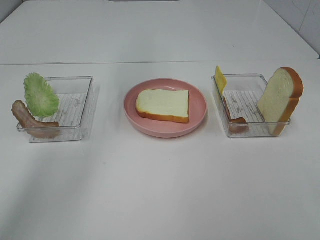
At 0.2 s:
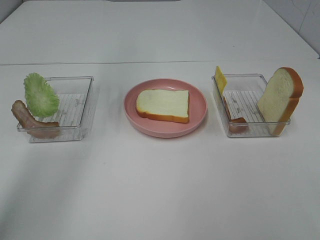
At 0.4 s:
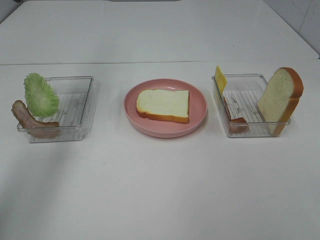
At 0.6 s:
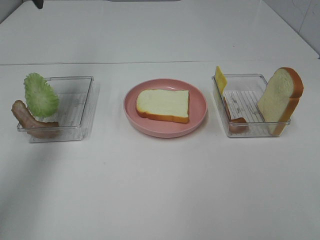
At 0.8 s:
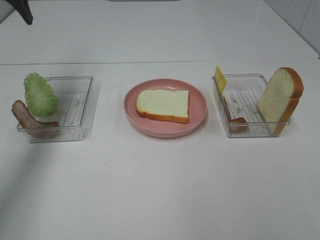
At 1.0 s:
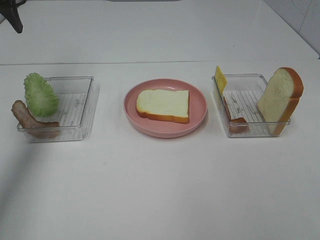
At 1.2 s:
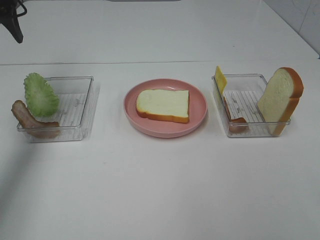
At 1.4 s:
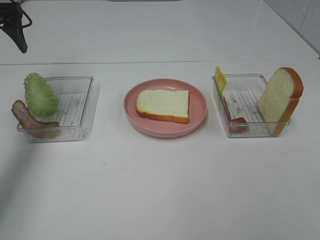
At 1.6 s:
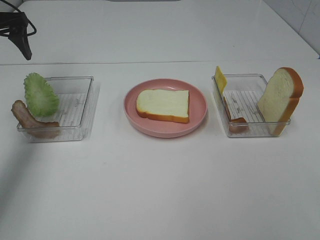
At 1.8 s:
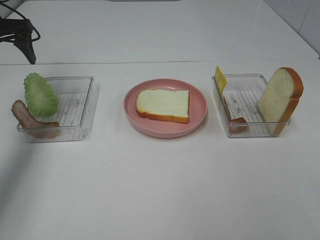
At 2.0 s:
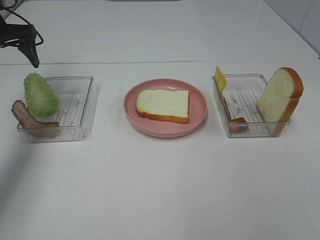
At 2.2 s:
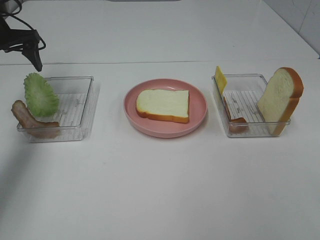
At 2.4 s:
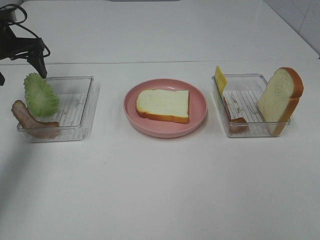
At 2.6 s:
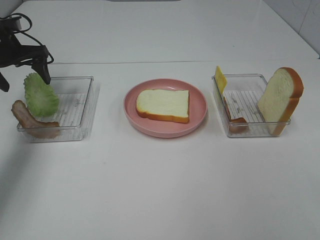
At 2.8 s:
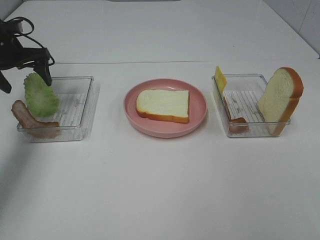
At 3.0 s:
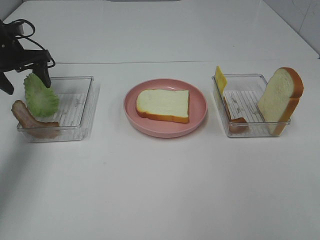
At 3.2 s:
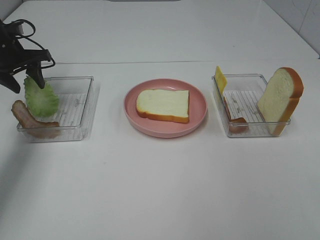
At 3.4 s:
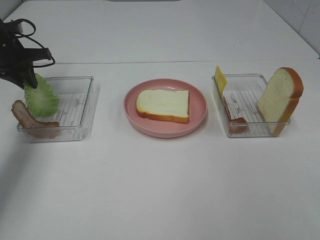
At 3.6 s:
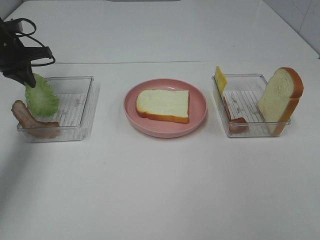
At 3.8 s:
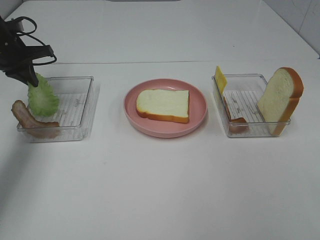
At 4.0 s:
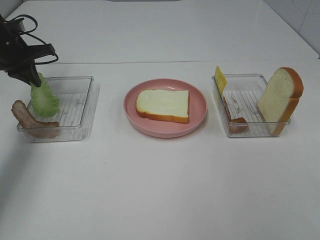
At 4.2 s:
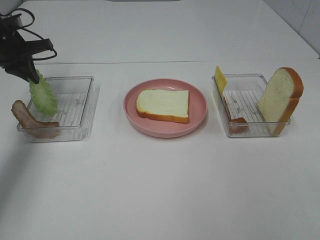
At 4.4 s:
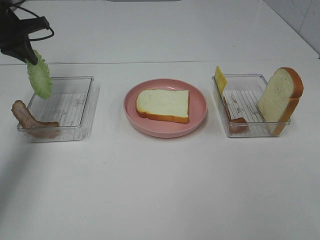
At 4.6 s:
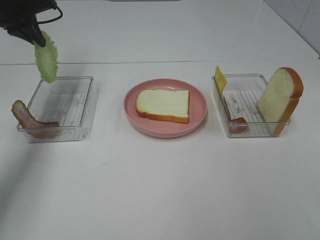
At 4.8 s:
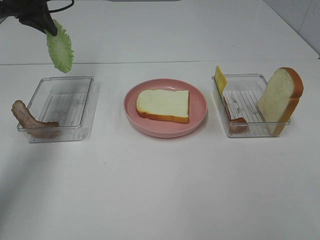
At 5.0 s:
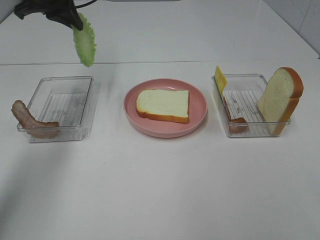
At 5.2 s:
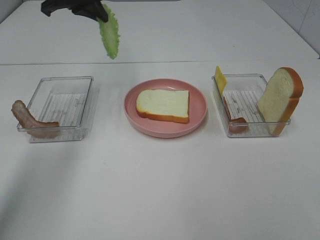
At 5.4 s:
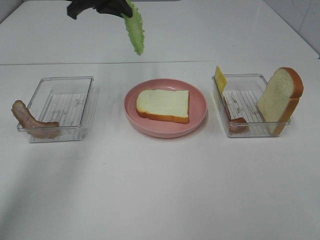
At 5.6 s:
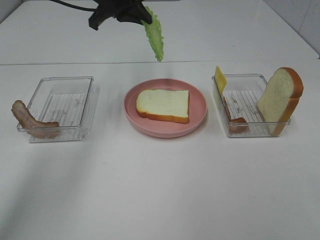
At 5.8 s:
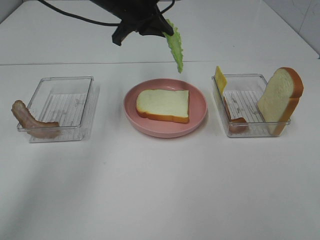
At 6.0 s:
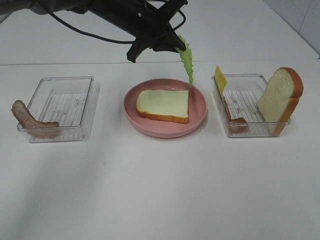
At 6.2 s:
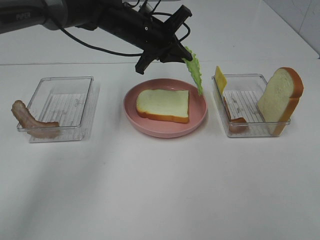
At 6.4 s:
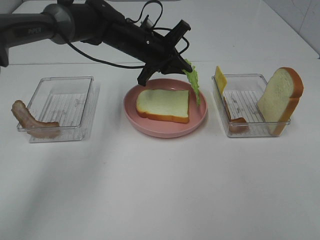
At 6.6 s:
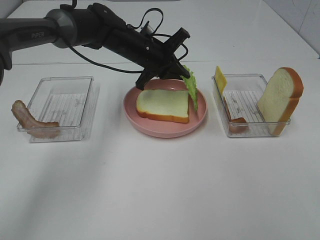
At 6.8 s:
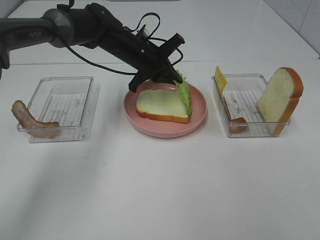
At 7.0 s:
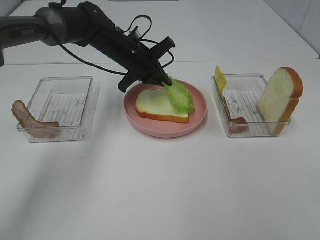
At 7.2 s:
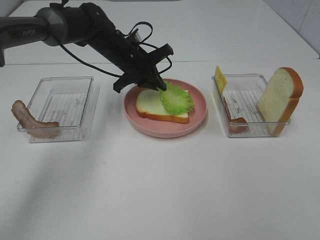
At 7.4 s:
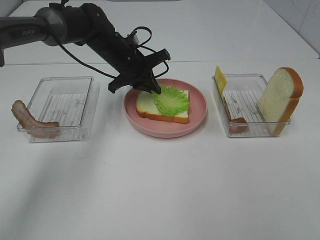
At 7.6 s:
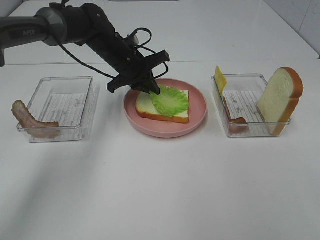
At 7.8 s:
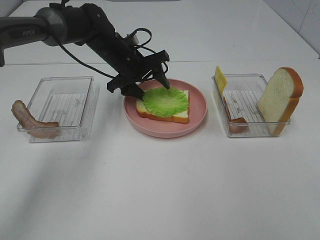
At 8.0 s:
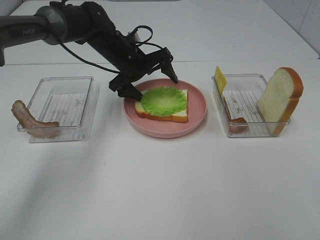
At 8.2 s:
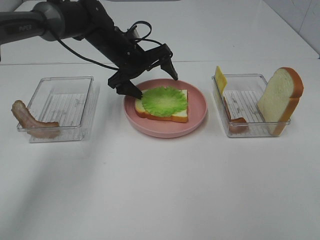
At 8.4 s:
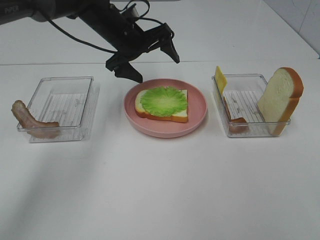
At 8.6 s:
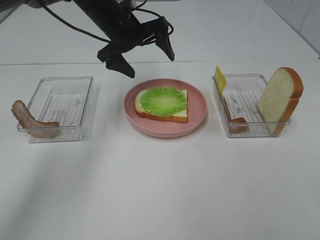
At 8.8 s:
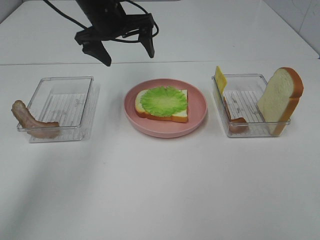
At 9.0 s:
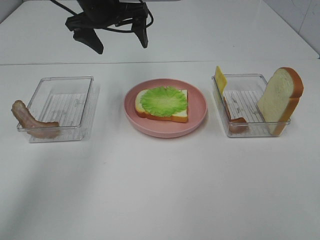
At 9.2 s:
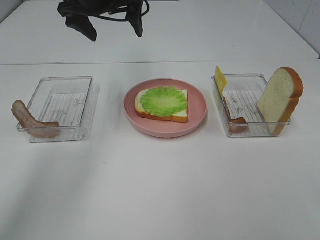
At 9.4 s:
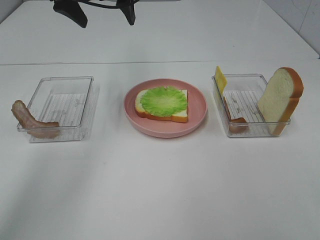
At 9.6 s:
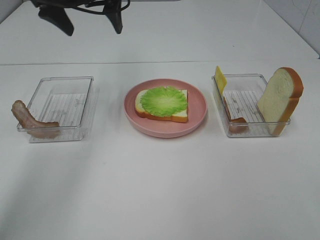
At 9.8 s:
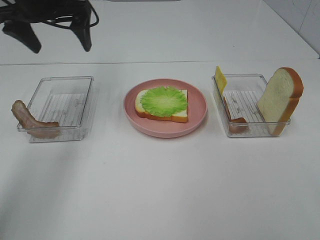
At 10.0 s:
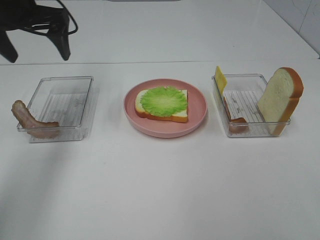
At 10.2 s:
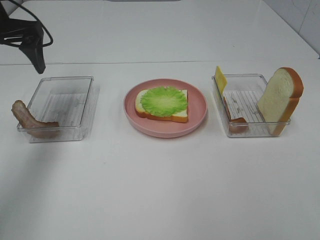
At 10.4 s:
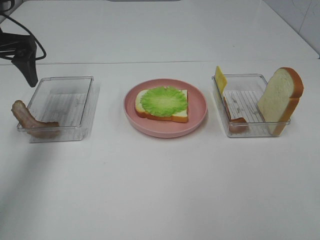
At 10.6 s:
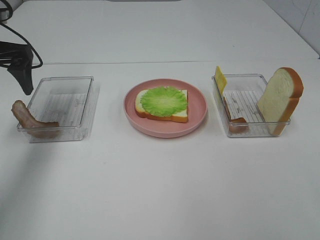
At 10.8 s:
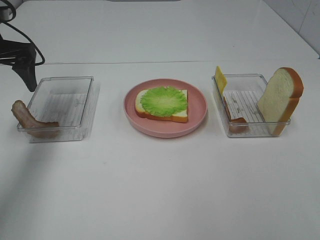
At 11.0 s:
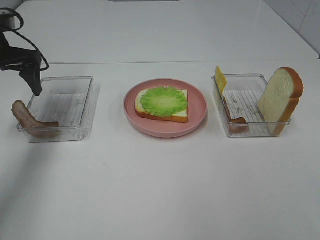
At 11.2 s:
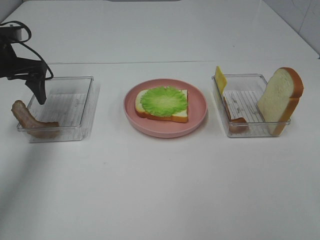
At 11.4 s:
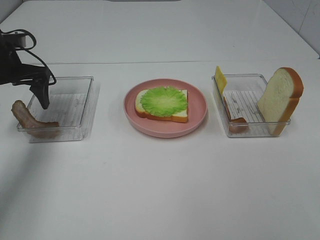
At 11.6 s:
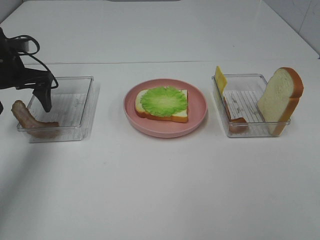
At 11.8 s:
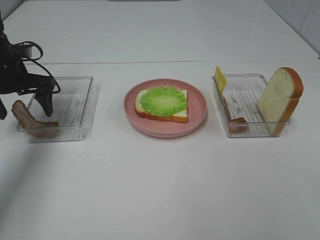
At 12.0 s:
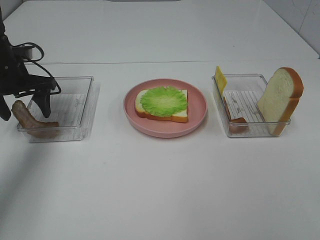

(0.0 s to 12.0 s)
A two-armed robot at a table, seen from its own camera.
Task of the whole recording: Make sandwiches.
Step, 0.0 s - 4.0 s: Left hand:grab the lettuce slice.
Step, 4.2 s - 8.4 s: Left hand:place the lettuce slice on the bread slice.
0.0 s - 1.6 s: The left gripper travels to the left and downward by some 20 cm.
1.6 s - 3.0 s: The left gripper goes some 10 cm downward.
3.0 s - 4.4 s: The left gripper travels upward by approximately 5 cm, and closes its fingers.
4.4 s - 6.0 s: The left gripper is displaced to the right by some 25 cm.
6.0 s - 7.6 s: The left gripper travels downward by approximately 10 cm.
7.6 s - 9.0 s: The left gripper is displaced upward by approximately 15 cm, and opens up.
9.0 s - 10.4 s: The left gripper moves to the left and backward, approximately 20 cm.
10.4 s - 12.0 s: The left gripper is displaced downward by some 10 cm.

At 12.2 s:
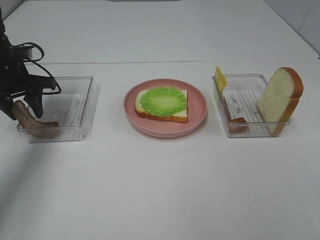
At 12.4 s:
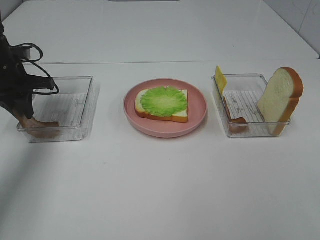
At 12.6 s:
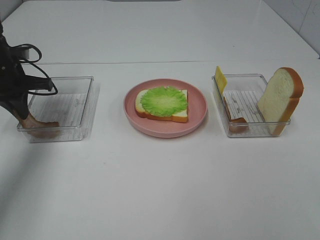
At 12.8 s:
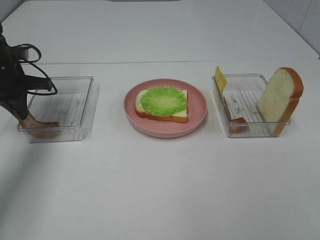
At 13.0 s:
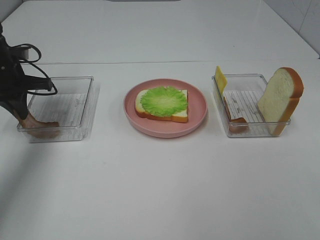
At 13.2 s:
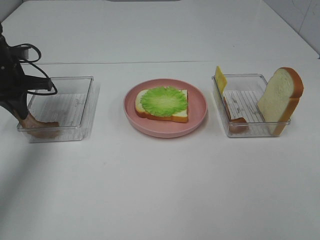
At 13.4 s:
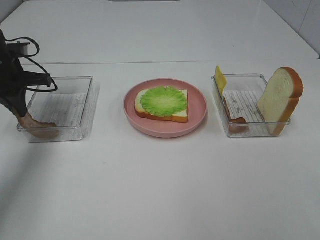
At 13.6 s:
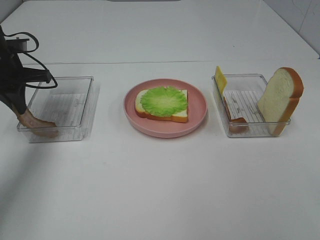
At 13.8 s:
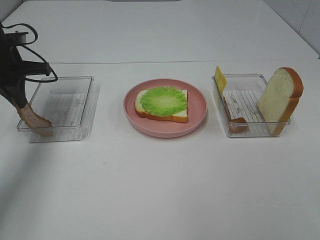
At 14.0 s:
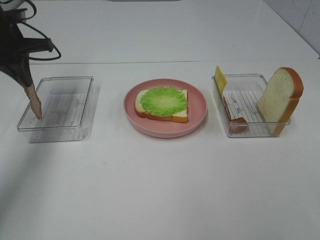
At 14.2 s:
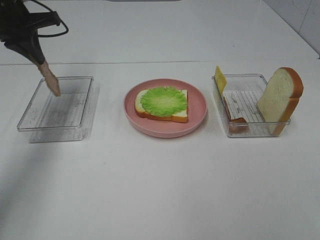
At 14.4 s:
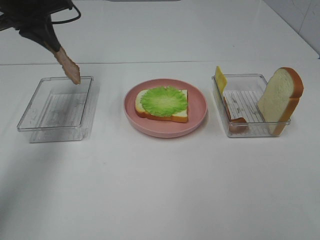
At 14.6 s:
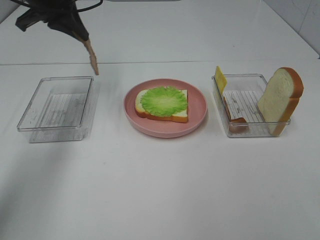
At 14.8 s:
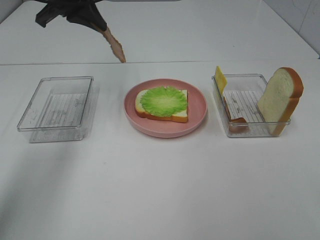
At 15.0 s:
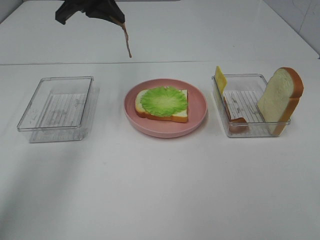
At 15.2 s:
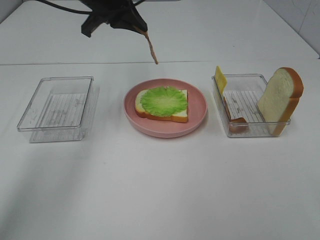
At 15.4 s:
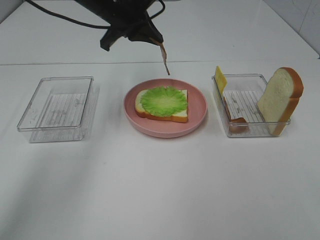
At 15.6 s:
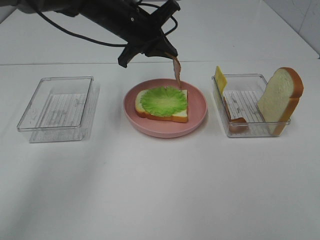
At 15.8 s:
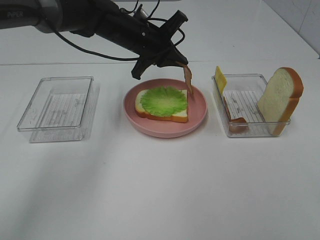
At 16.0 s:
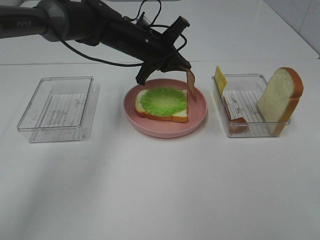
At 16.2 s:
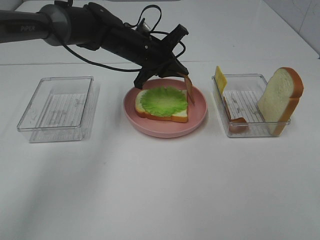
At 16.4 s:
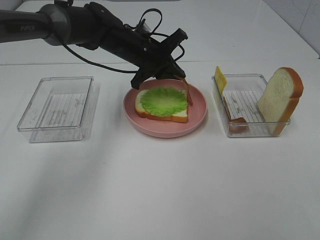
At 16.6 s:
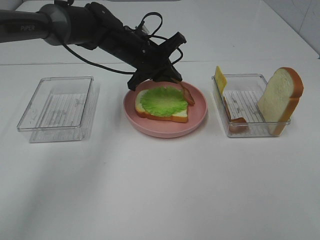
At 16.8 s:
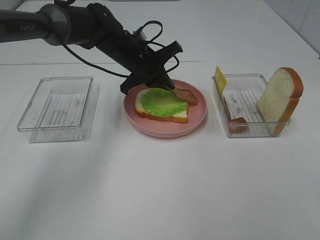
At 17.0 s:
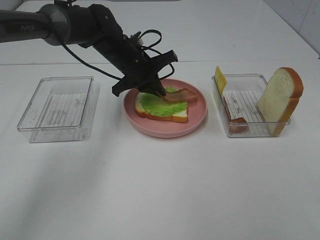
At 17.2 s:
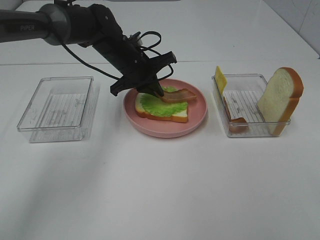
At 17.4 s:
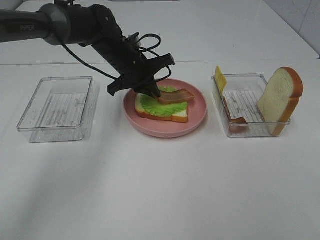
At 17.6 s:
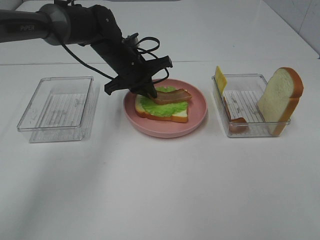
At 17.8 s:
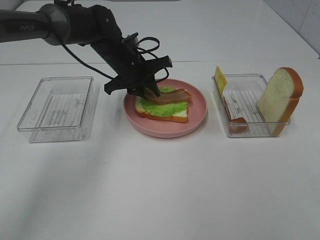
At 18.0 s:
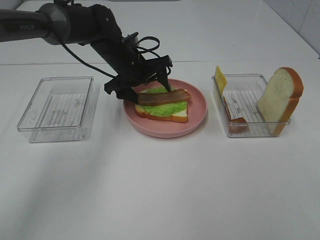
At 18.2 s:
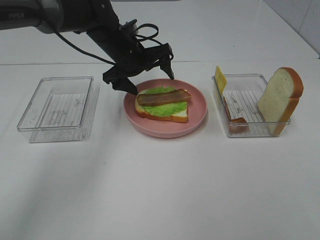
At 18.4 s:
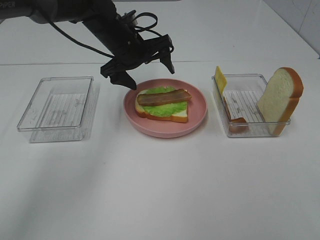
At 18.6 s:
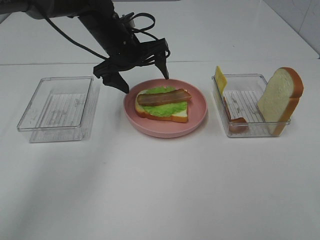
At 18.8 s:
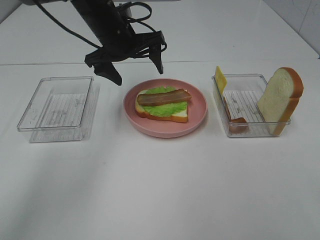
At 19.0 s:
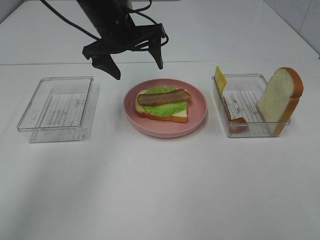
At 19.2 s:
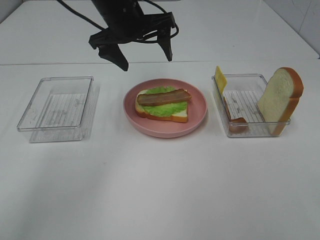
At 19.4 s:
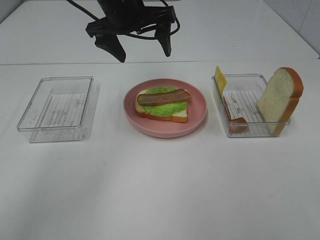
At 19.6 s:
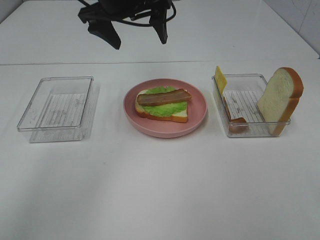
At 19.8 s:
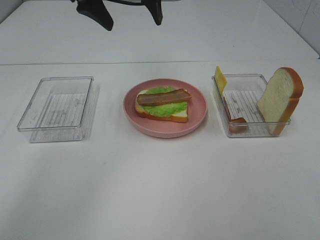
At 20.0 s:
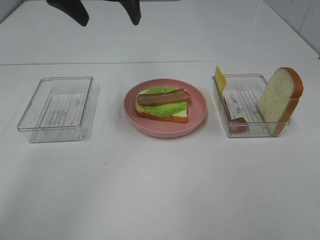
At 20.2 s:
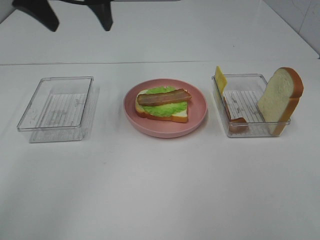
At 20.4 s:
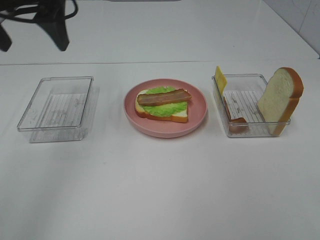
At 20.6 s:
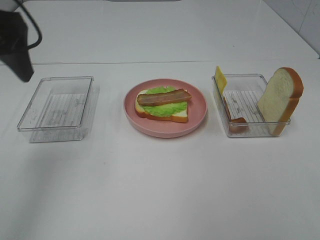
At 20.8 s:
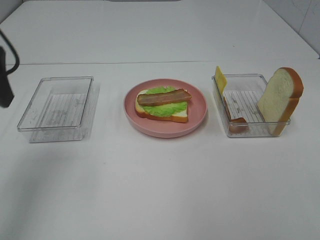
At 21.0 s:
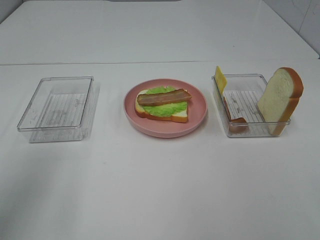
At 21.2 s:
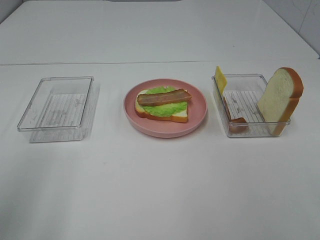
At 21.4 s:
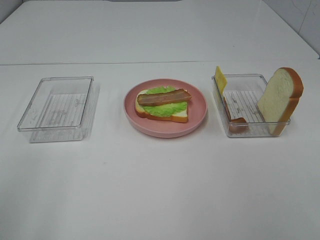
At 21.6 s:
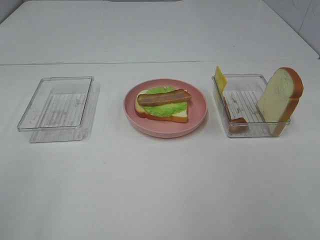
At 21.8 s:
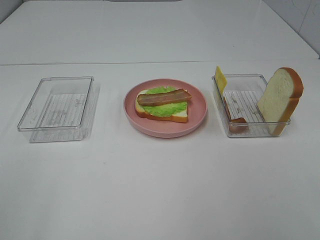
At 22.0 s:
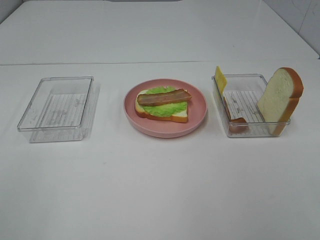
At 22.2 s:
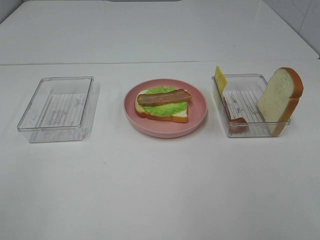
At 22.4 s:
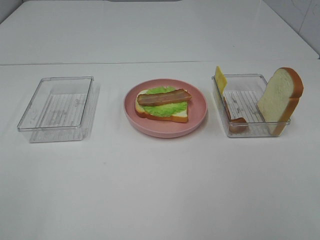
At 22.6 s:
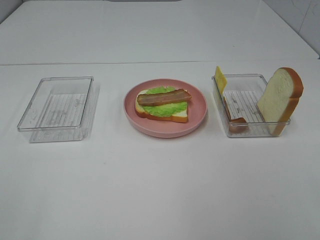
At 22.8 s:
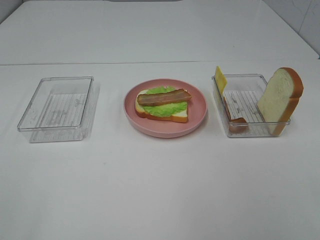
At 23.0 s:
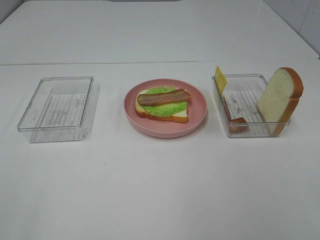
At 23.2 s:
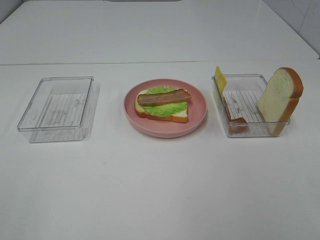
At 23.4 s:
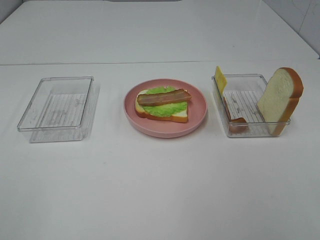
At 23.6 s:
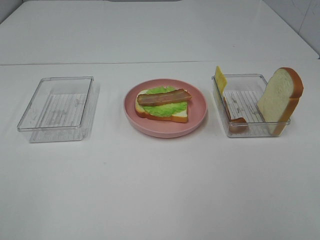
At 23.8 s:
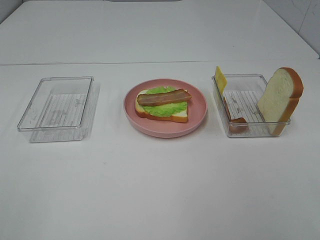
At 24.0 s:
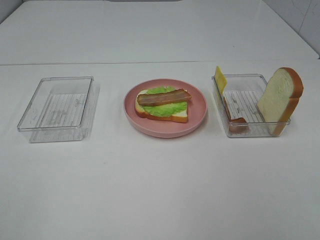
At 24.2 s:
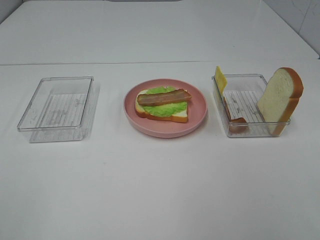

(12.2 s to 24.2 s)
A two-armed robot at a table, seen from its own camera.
Task of the whole recording: Make sandwiches.
Step, 13.2 s - 18.6 s: Left hand:place bacon on lettuce slice.
12.2 s - 13.8 s: The left gripper closes.
13.8 s - 15.2 s: The left gripper goes about 20 cm to the right and upward.
15.2 s - 16.6 s: The left gripper goes roughly 15 cm downward and to the right.
16.6 s - 18.2 s: The left gripper opens its fingers.
18.2 s - 19.8 s: The left gripper is displaced upward by about 15 cm.
19.8 s - 21.2 s: The left gripper shifts some 35 cm backward and to the left.
21.2 s - 22.6 s: The left gripper is displaced backward by roughly 15 cm.
